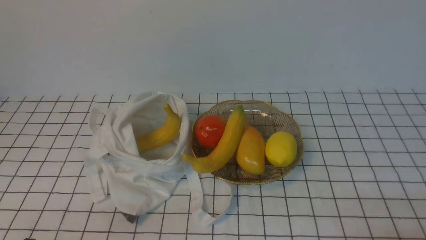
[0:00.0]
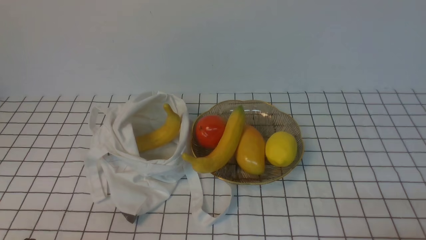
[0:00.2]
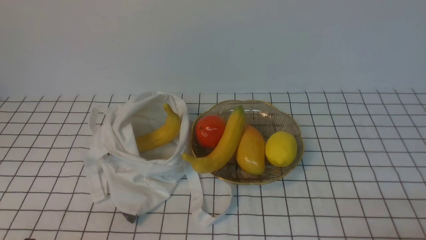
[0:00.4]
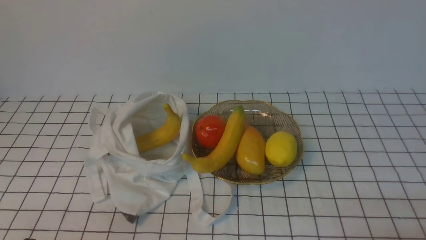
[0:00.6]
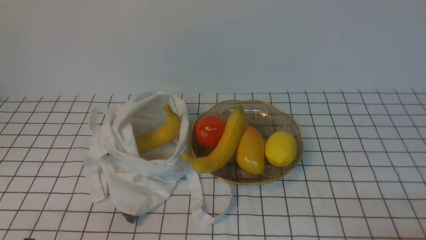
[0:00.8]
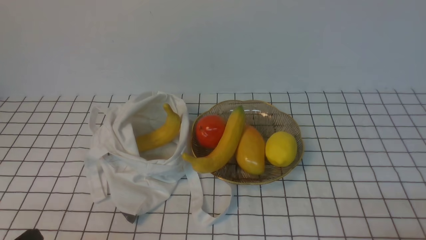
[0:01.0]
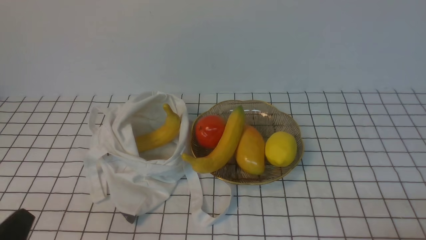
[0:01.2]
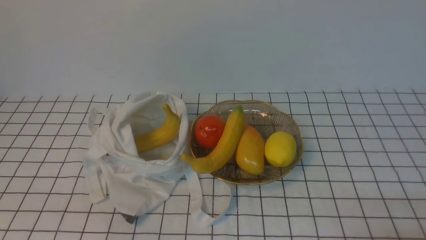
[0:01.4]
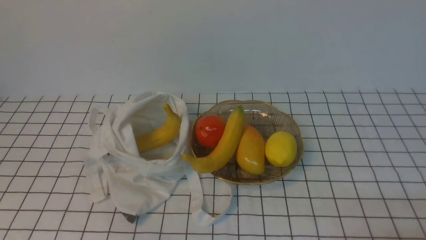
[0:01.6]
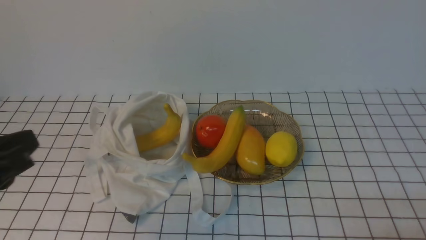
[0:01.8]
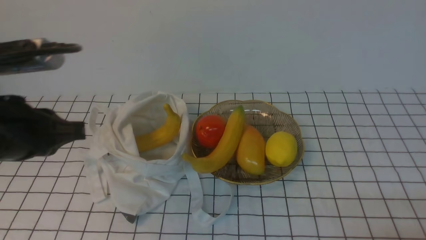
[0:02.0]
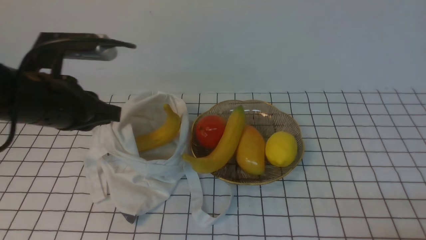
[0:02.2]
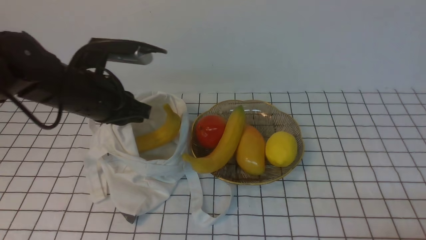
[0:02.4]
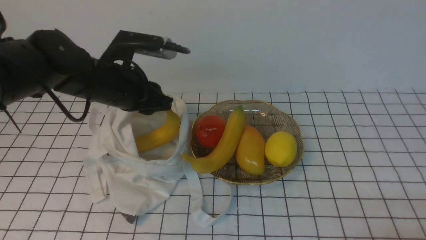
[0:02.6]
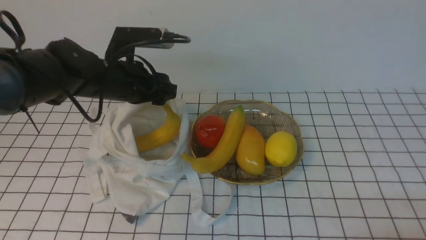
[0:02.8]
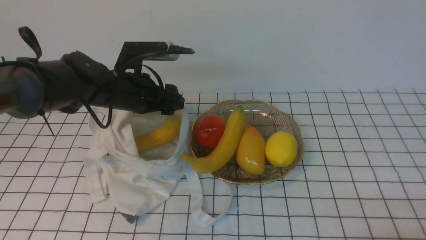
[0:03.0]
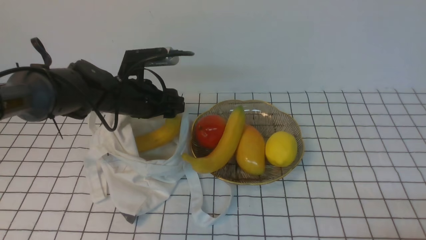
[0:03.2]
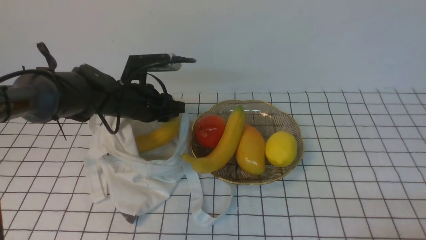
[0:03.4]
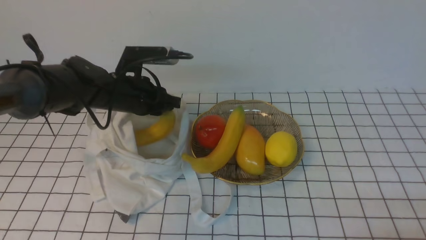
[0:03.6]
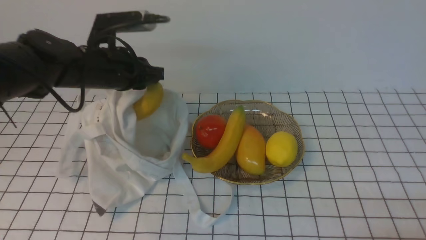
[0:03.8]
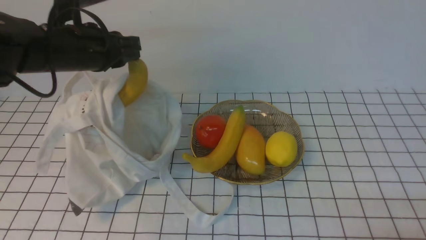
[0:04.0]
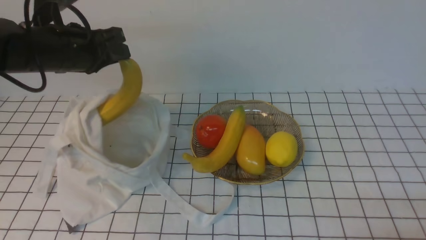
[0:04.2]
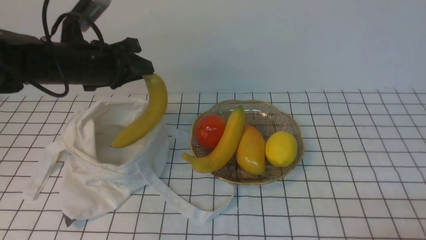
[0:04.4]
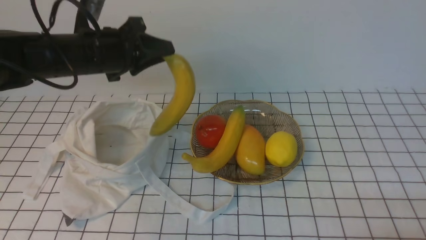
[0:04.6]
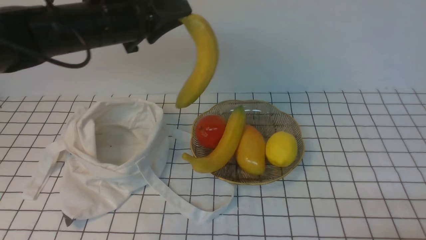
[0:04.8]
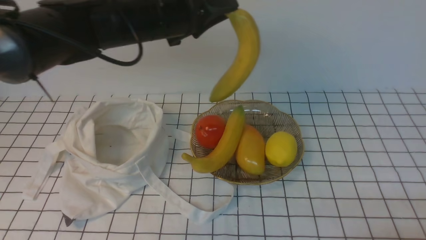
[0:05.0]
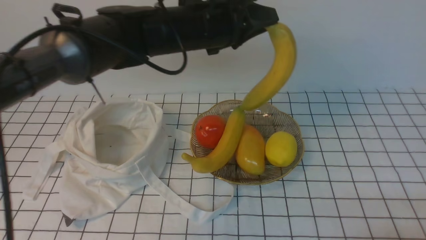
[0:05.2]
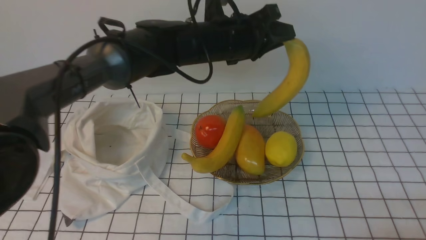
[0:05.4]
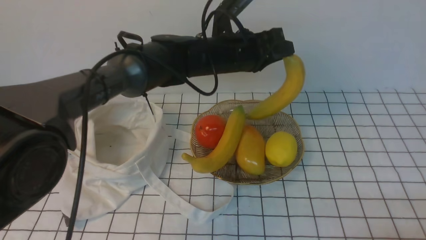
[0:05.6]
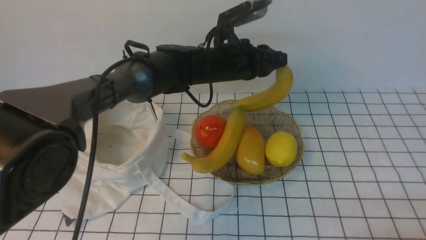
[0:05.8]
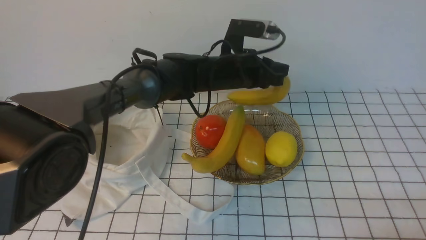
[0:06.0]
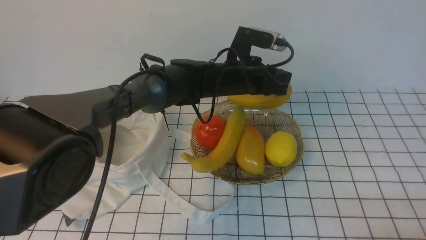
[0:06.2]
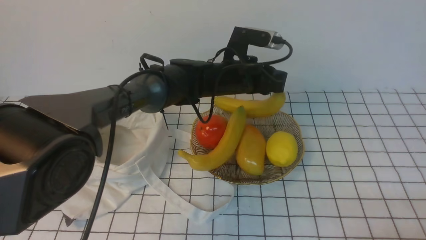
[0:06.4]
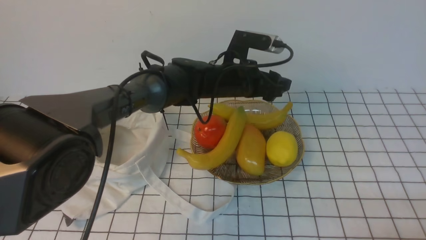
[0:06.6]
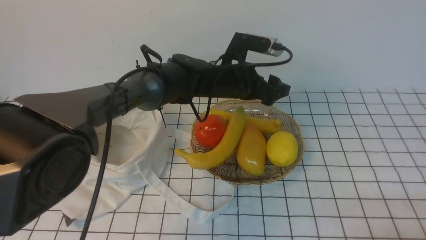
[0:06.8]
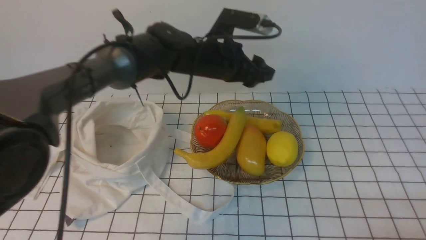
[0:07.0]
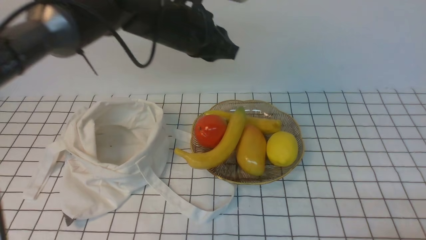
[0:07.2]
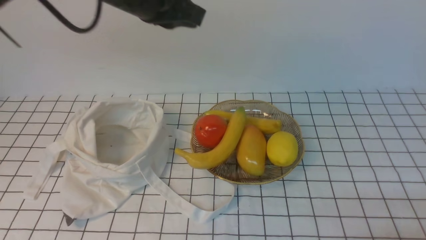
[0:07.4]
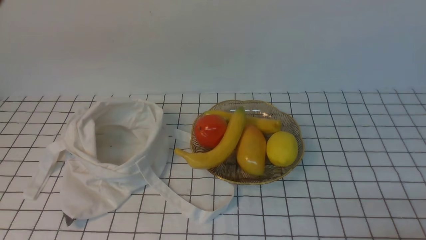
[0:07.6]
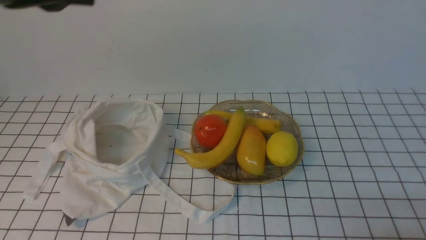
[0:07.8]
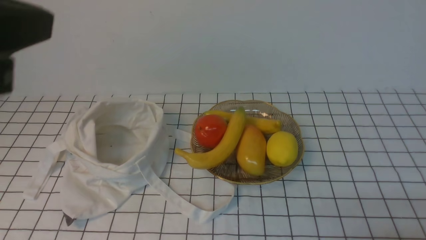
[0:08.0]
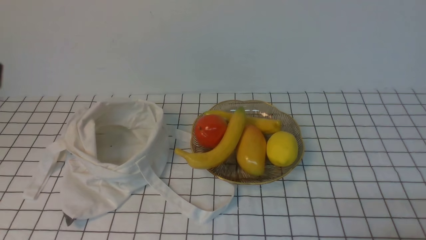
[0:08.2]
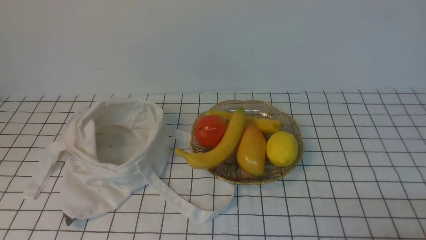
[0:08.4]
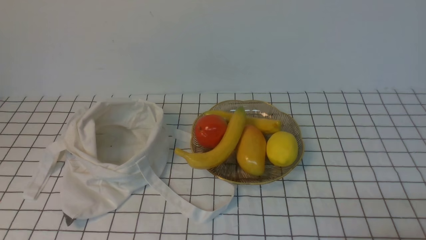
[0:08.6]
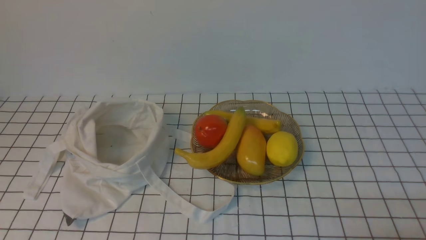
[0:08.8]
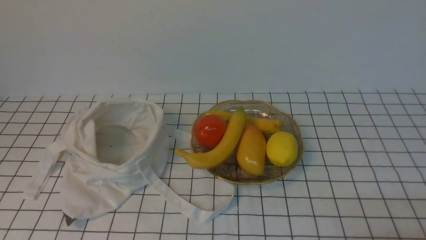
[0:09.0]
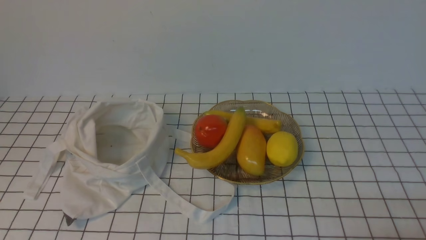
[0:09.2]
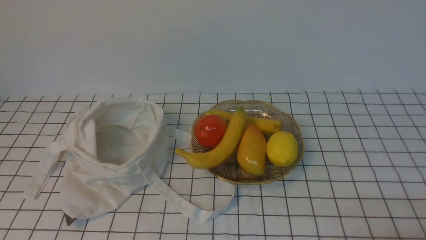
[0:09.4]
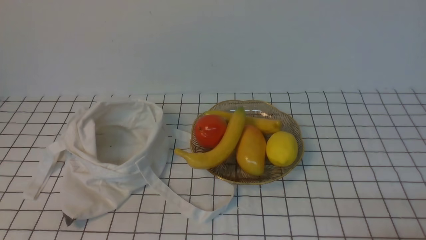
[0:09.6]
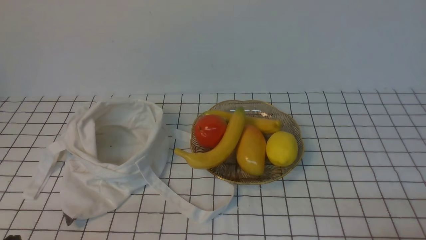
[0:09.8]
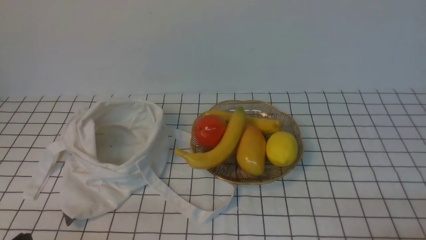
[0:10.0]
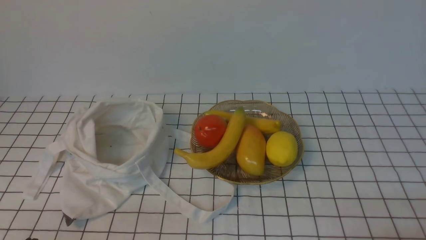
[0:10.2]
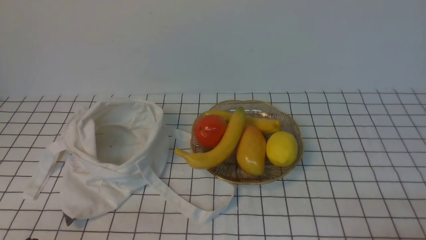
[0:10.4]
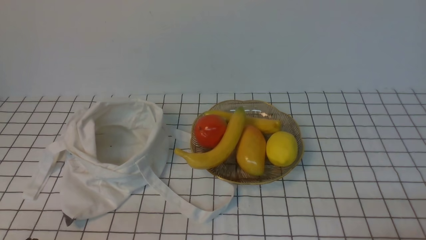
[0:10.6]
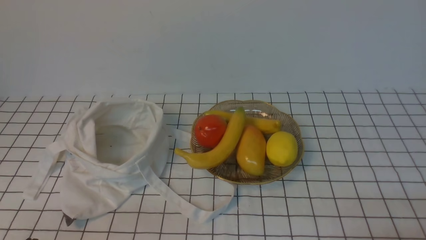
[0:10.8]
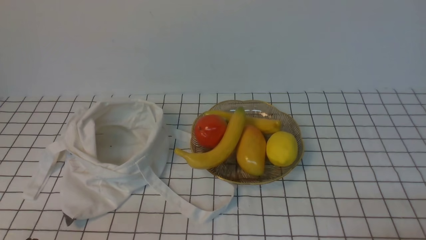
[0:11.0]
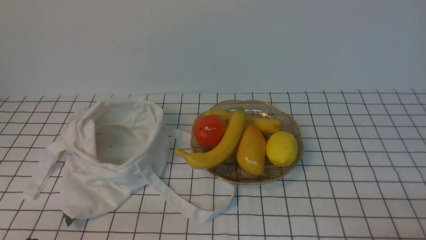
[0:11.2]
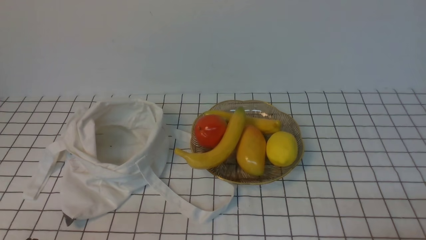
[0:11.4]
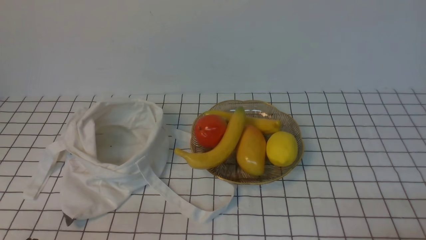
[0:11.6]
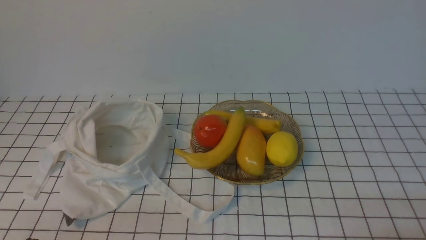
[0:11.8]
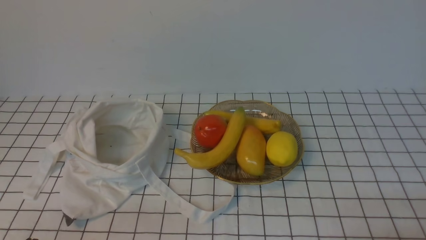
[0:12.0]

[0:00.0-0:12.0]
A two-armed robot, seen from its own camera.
Step, 0:00.0 to 0:04.0: use the left arm to grab a banana from the bag.
Step, 0:04.2 to 0:06.6: use the left arm to put the banana into the empty plate on the right.
0:01.6 to 0:03.0: The left gripper shifts some 35 cm forward, and opens its fingers.
0:03.0 to 0:04.4: The left gripper heads to the left and upward, covering roughly 10 cm, and closes.
0:04.4 to 0:06.0: The left gripper travels to the right by some 20 cm.
0:06.0 to 0:07.6: The left gripper shifts some 25 cm upward, to the left and backward, and opens, then closes again.
0:10.4 to 0:12.0: The two grippers keep their place.

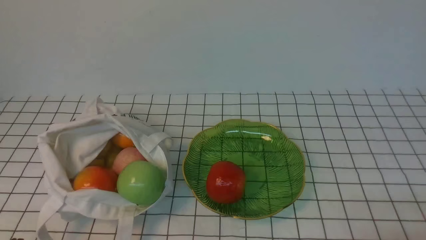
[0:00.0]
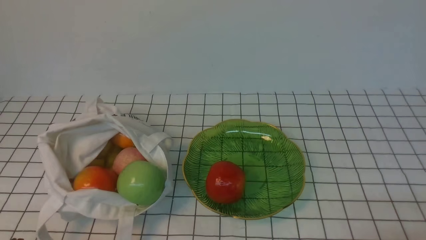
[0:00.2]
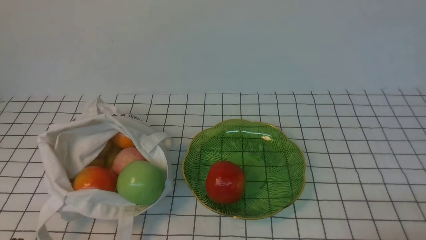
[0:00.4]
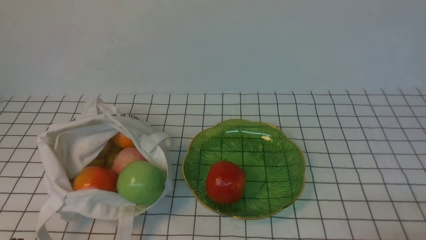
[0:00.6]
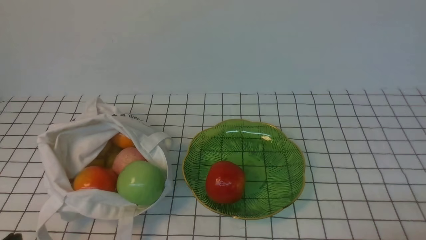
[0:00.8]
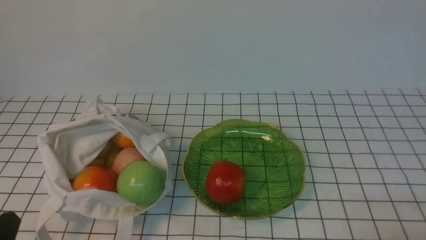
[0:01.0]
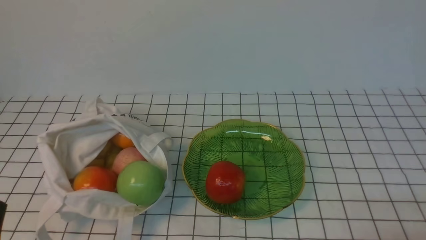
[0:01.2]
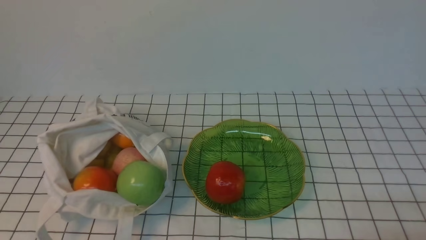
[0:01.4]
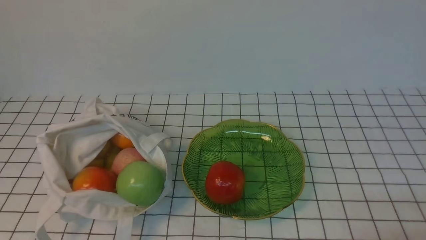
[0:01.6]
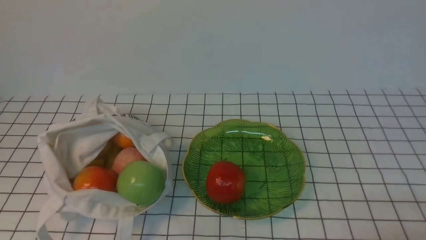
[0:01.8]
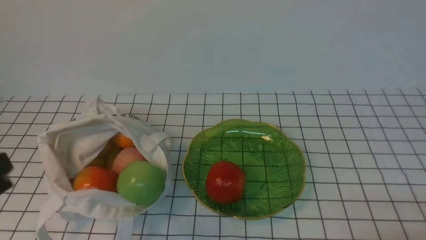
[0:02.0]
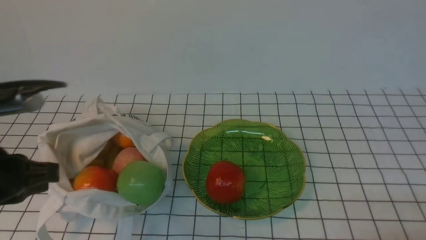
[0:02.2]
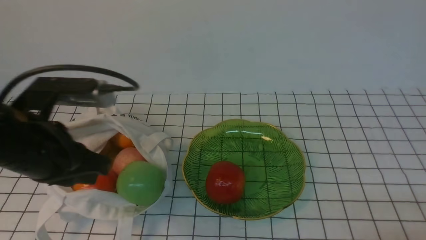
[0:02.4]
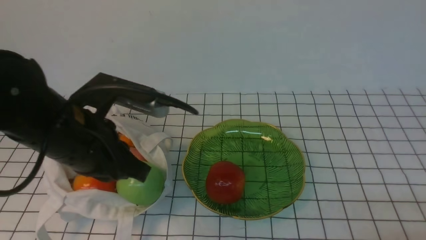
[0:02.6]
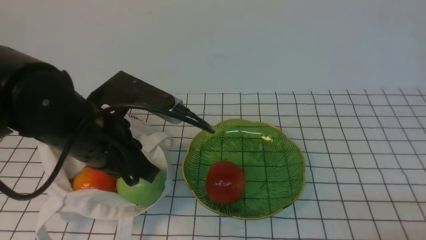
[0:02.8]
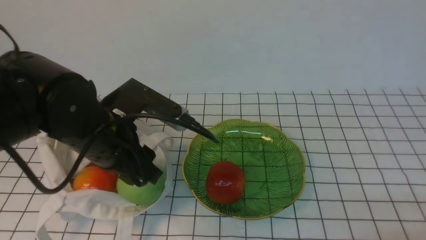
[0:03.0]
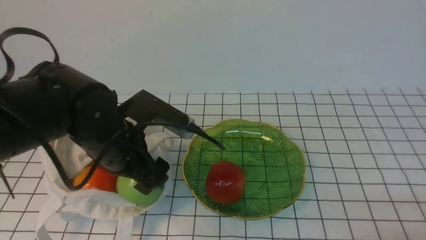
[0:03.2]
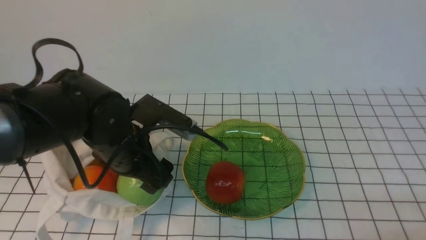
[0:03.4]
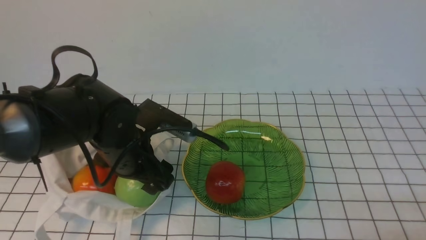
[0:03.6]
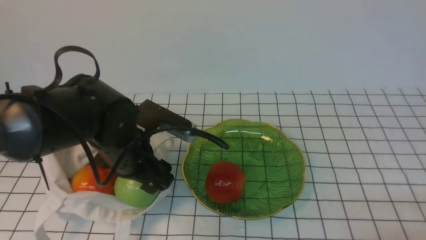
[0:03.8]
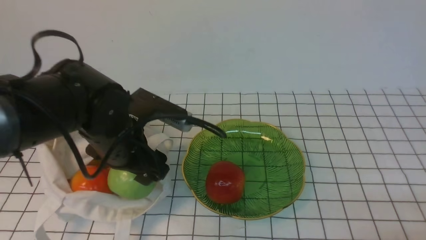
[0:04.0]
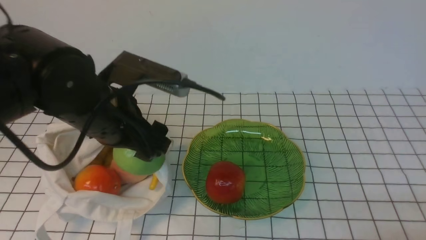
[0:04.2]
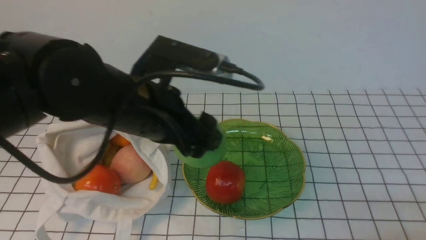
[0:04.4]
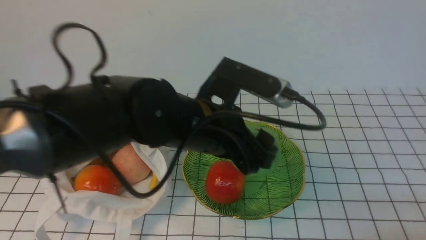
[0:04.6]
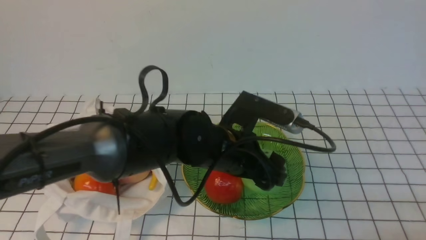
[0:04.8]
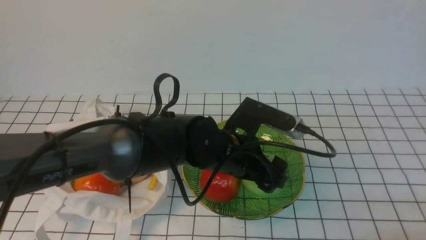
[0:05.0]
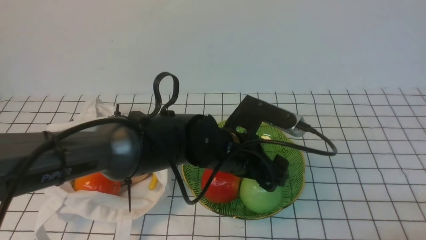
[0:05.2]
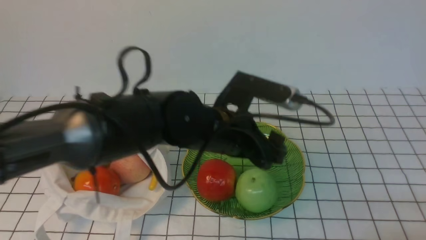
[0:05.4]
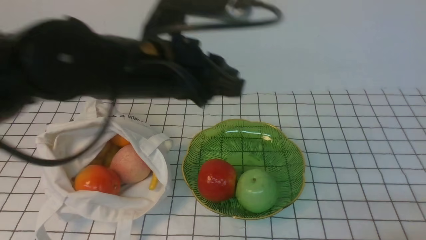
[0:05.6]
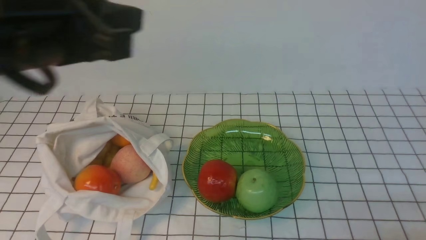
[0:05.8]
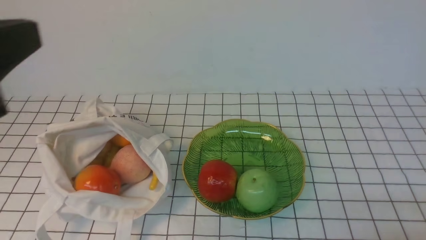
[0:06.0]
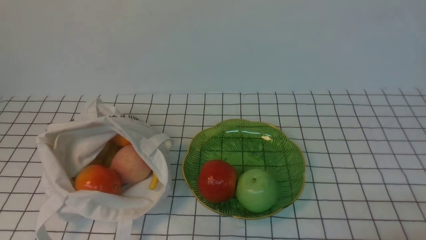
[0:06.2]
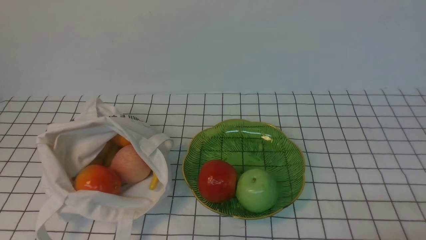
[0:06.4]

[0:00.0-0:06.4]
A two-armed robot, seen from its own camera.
Step, 0:00.0 to 0:04.0: use the left arm to grab an apple from the bag.
Step, 0:04.2 to 0:05.4: use the left arm to put the apple into the empty plate on the right.
0:01.6 to 0:03.2: The left gripper heads forward and to the right, covering about 25 cm, and opens its fingers.
0:03.2 to 0:04.8: The left gripper heads to the right, covering about 15 cm.
0:04.8 to 0:06.4: The left gripper goes approximately 35 cm to the left, backward and upward, and closes up.
